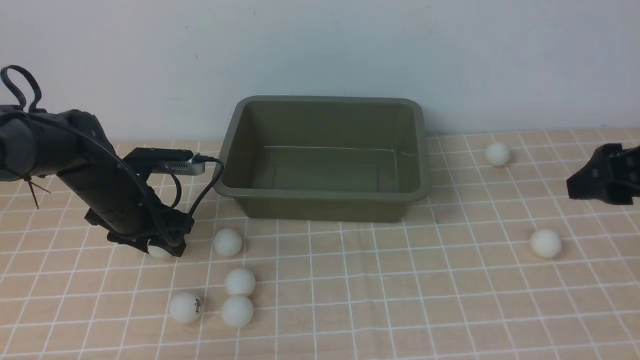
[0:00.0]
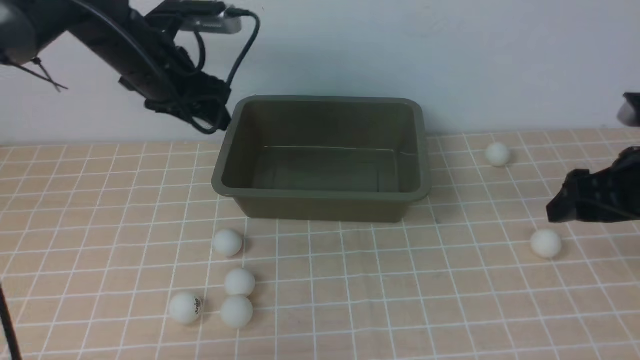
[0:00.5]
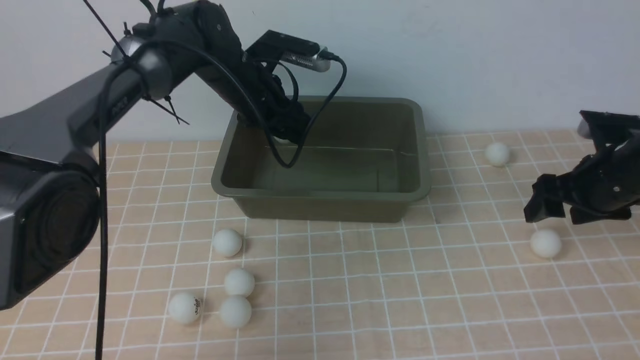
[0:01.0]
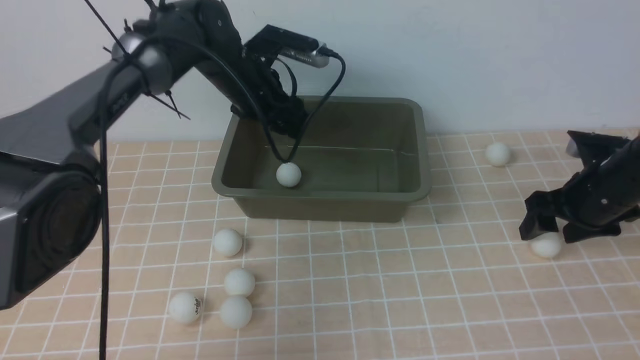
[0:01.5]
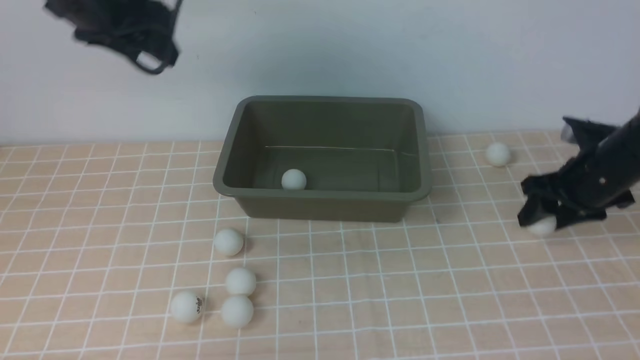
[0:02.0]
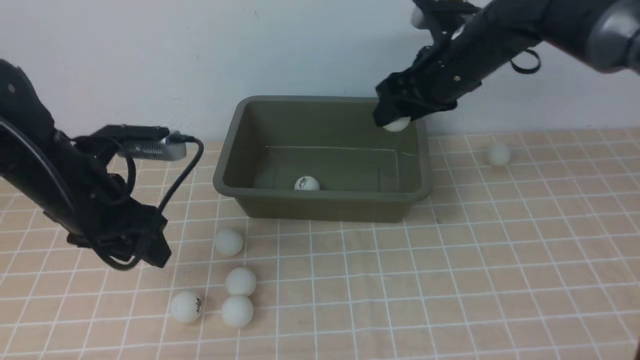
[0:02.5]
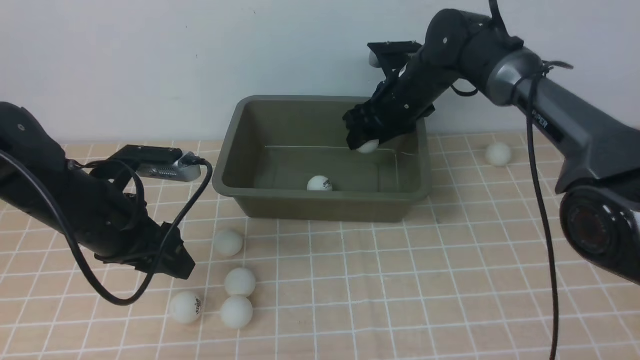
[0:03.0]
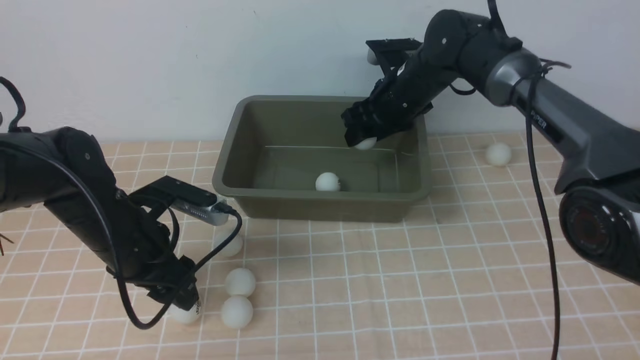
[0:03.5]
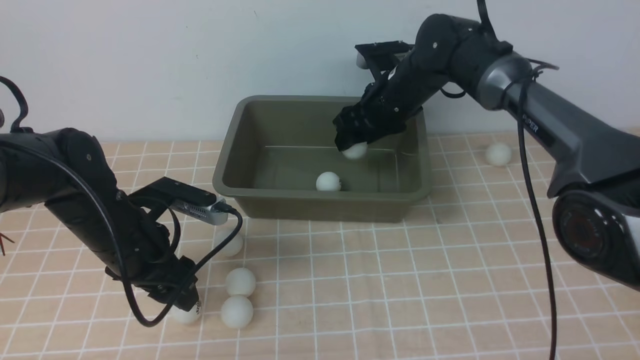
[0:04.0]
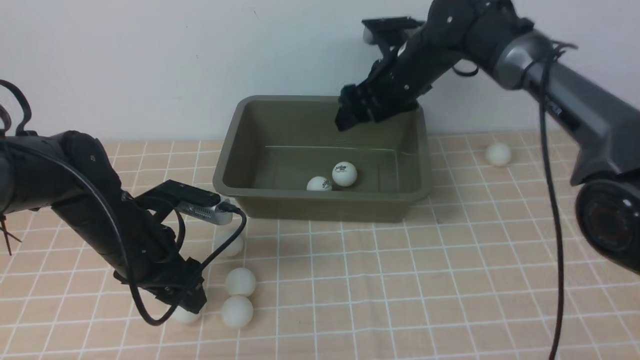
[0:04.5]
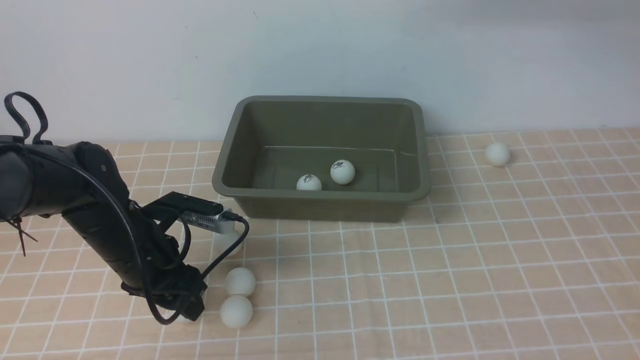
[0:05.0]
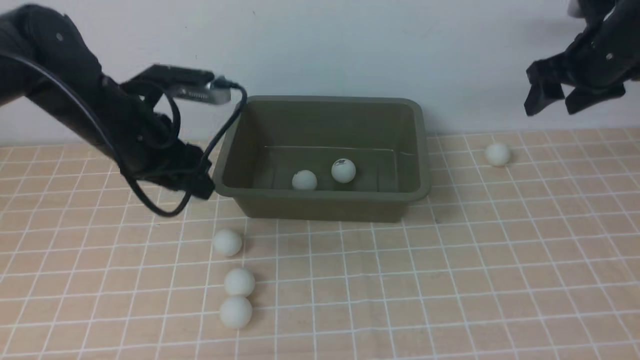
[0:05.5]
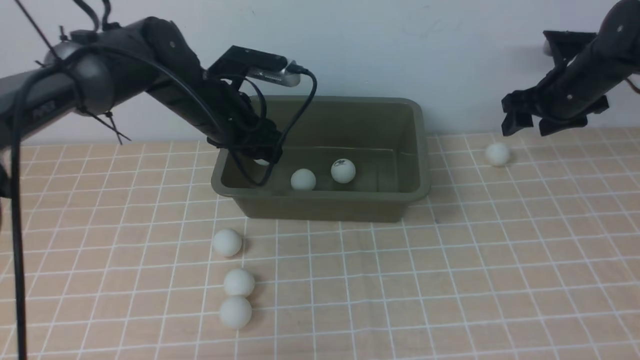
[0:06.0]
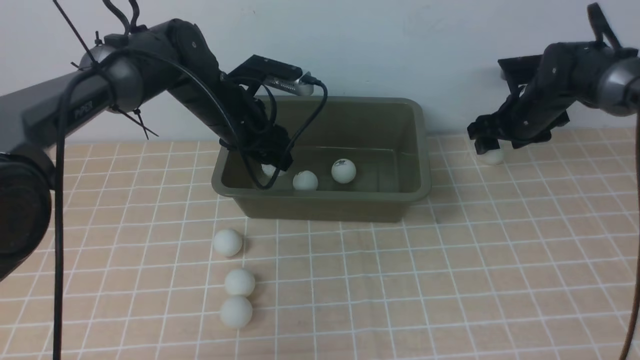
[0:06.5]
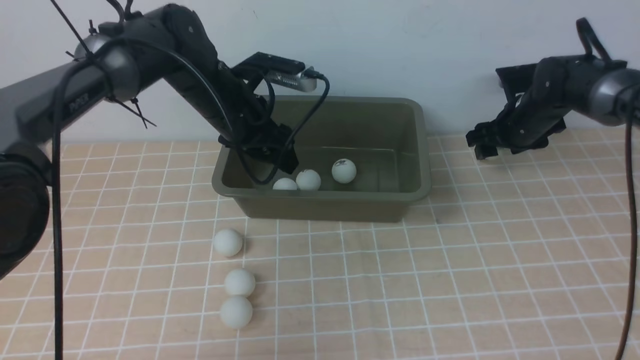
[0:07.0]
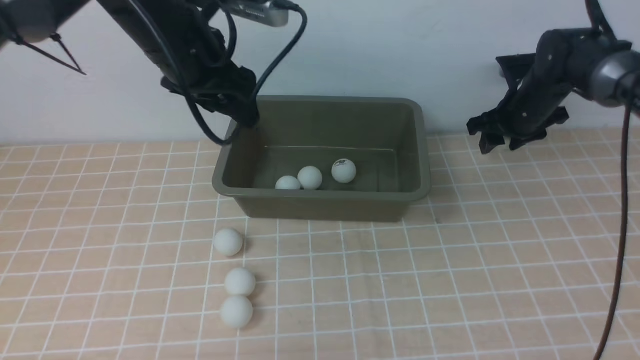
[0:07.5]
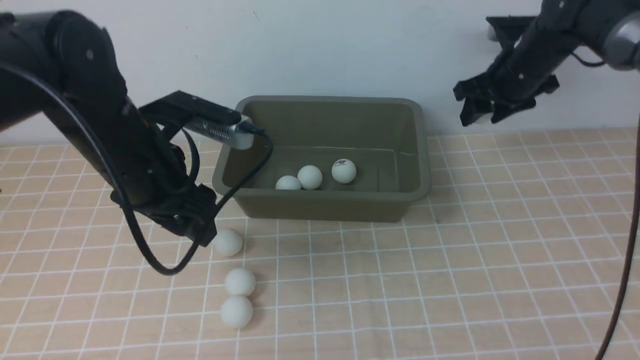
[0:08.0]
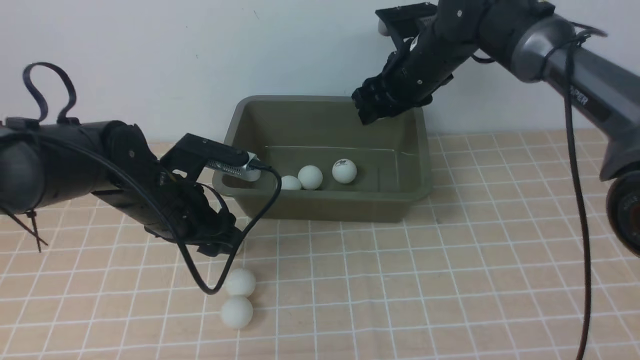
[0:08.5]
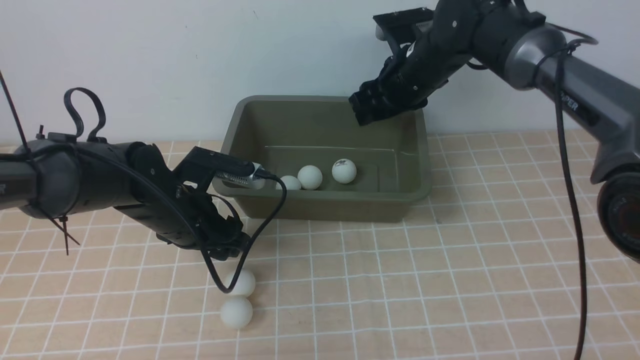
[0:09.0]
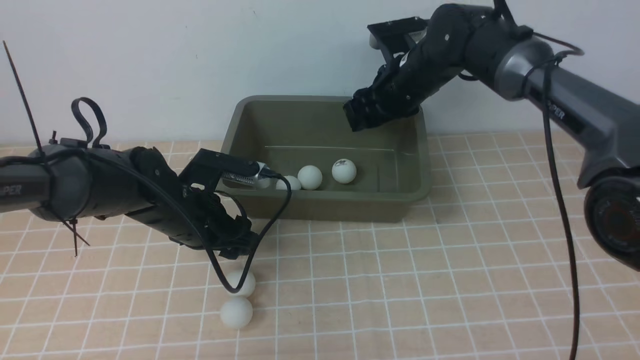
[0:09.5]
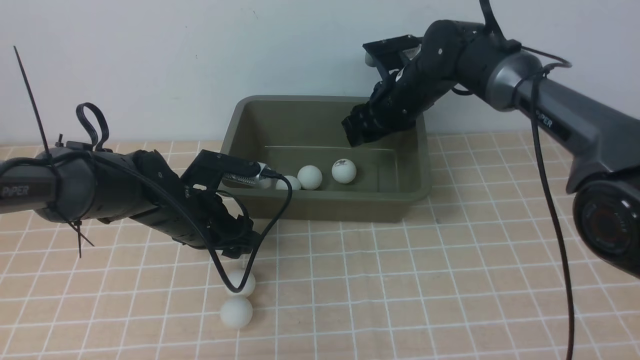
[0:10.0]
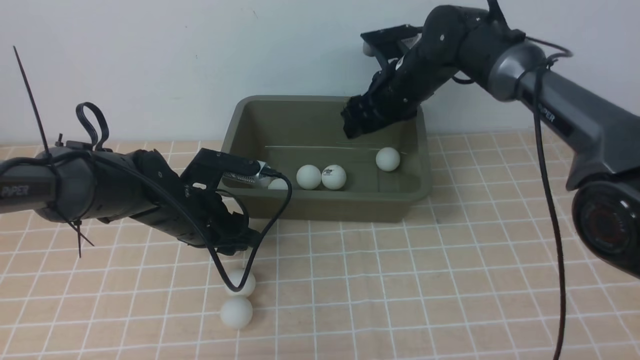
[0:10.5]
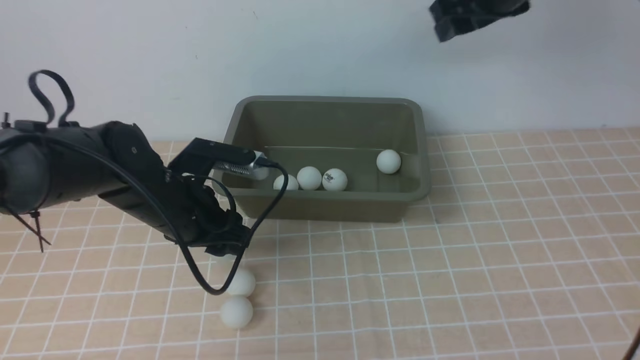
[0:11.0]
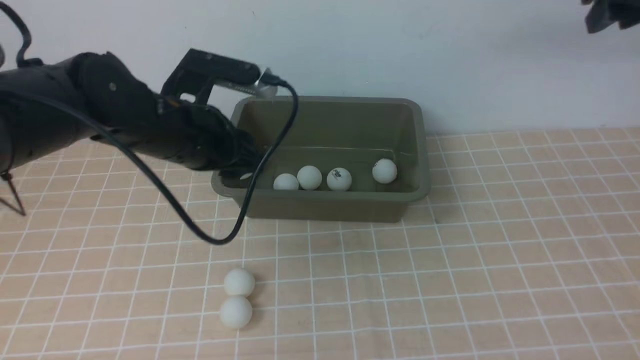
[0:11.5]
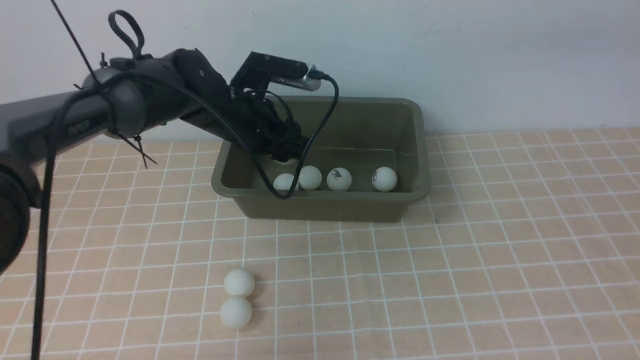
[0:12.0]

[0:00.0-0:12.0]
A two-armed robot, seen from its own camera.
Step, 0:00.5 to 0:01.5: use the left arm to put the table tennis ball into the box.
Step, 0:02.5 to 0:04.0: use the right arm to put the table tennis ball into the box.
Step, 0:05.5 to 0:06.5: use the left arm to put the table tennis ball into the box.
Step, 0:07.0 to 0:07.5: use the right arm to clamp the table tennis ball closest to it.
Step, 0:08.0 to 0:09.5: use the right arm to put the table tennis ball into the box.
Step, 0:10.5 to 0:11.0: use the left arm to clamp the table tennis ball closest to it.
0:00.0 to 0:02.0: The right gripper heads forward and downward, covering approximately 15 cm, and closes up, while the left gripper swings up and down, about 20 cm each way, with 2 reversals.
0:02.0 to 0:04.0: The right gripper heads to the left and forward, covering about 20 cm. Meanwhile the left gripper goes some 20 cm downward and backward.
0:04.0 to 0:06.0: The left gripper heads forward, to the right and upward, covering some 15 cm. Meanwhile the right gripper is displaced to the right by roughly 20 cm.
0:06.0 to 0:08.0: The left gripper is displaced backward by about 10 cm. The right gripper is displaced to the left by about 10 cm.
0:08.0 to 0:10.0: The left gripper shifts about 15 cm downward; the right gripper shifts some 10 cm to the left.
0:10.0 to 0:12.0: The right gripper heads upward, to the right and backward, covering approximately 40 cm, and closes its fingers; the left gripper is displaced forward, upward and to the right by roughly 15 cm.

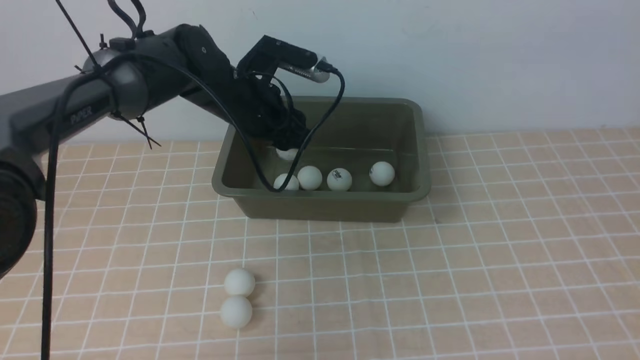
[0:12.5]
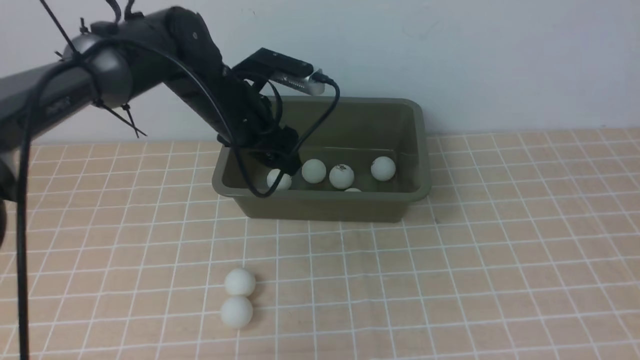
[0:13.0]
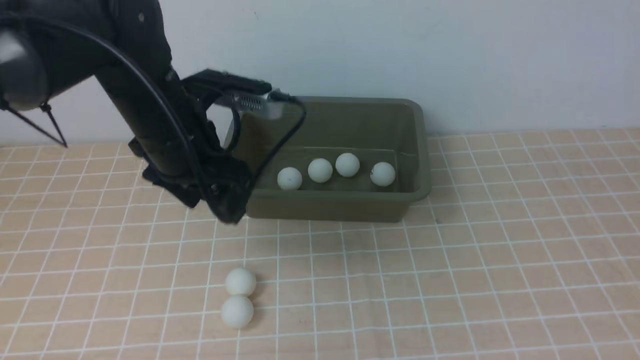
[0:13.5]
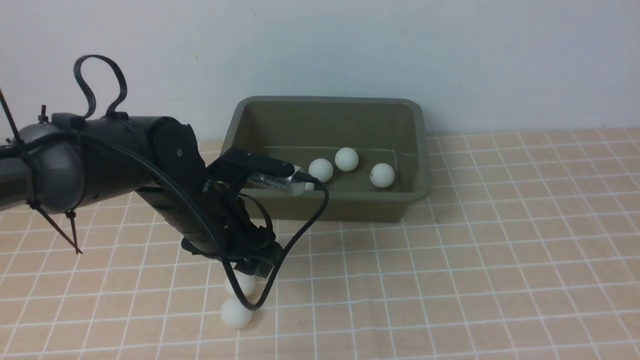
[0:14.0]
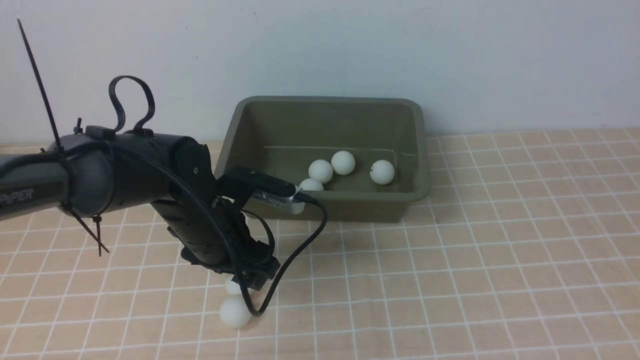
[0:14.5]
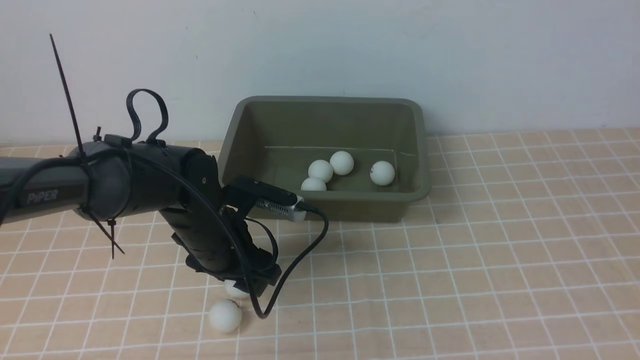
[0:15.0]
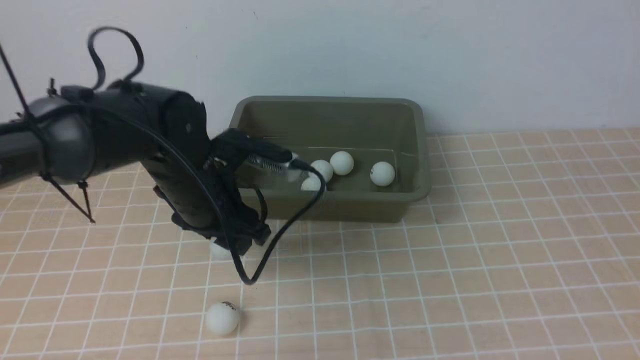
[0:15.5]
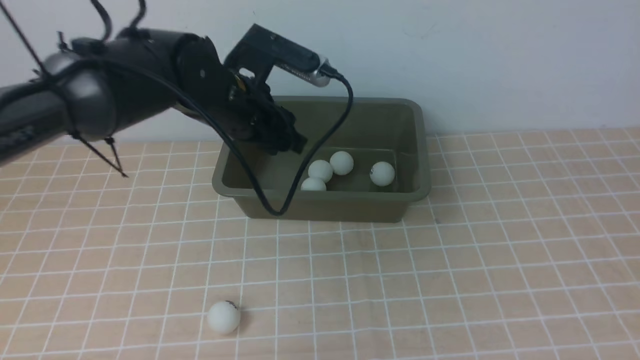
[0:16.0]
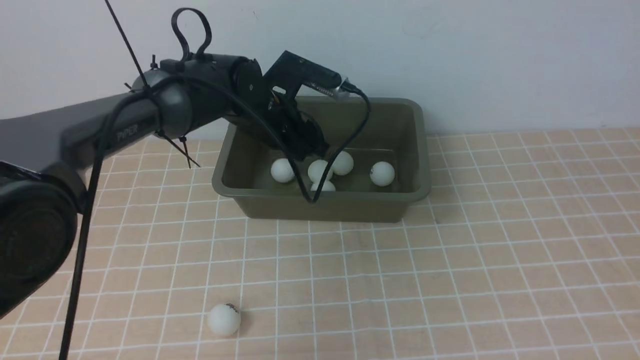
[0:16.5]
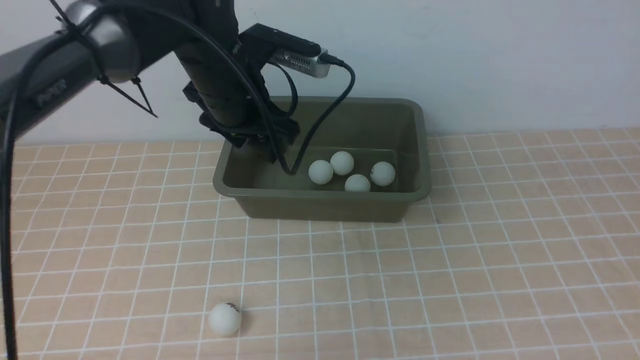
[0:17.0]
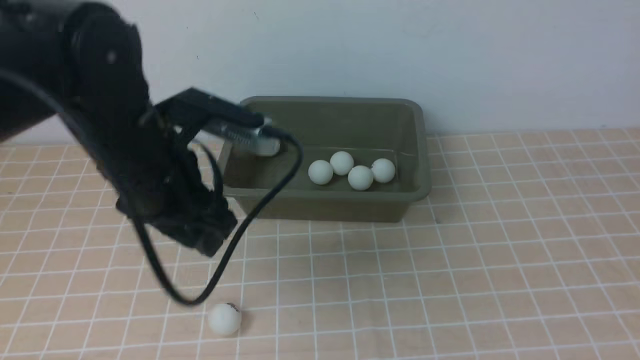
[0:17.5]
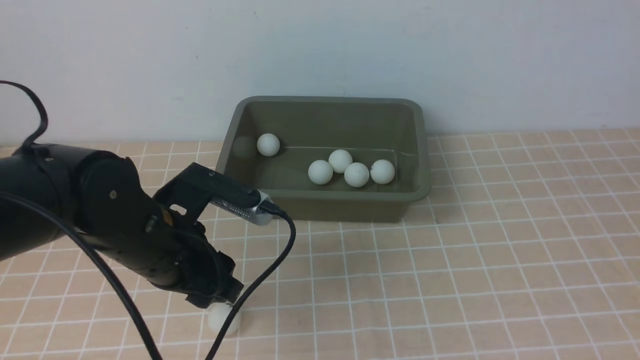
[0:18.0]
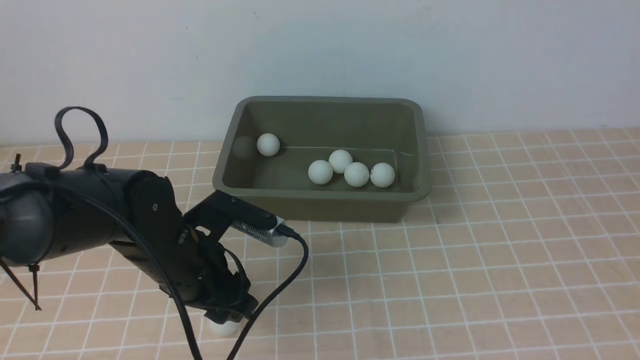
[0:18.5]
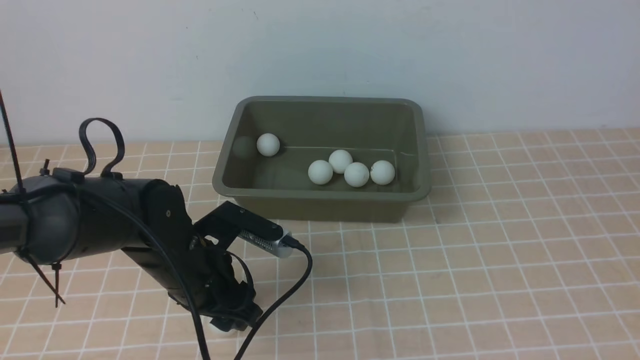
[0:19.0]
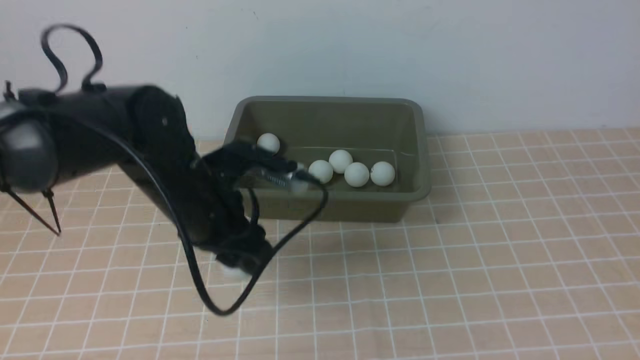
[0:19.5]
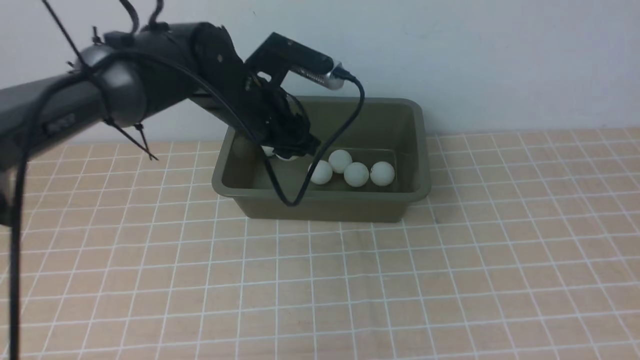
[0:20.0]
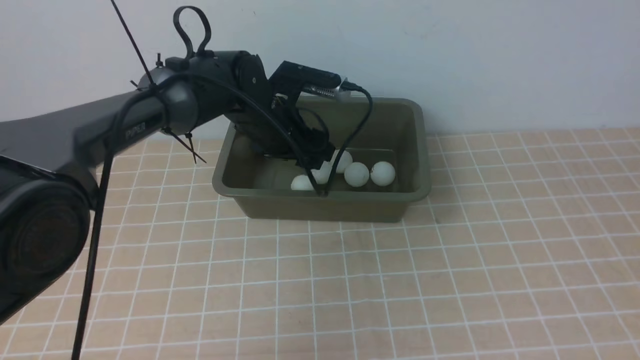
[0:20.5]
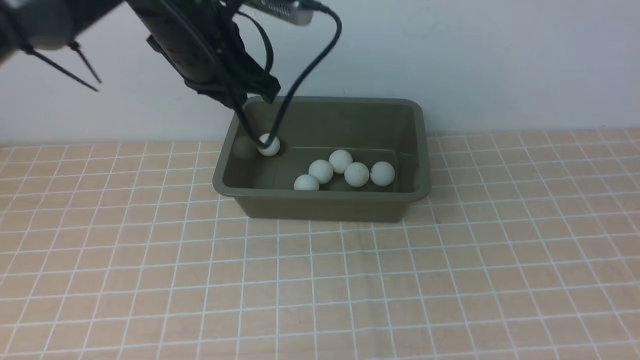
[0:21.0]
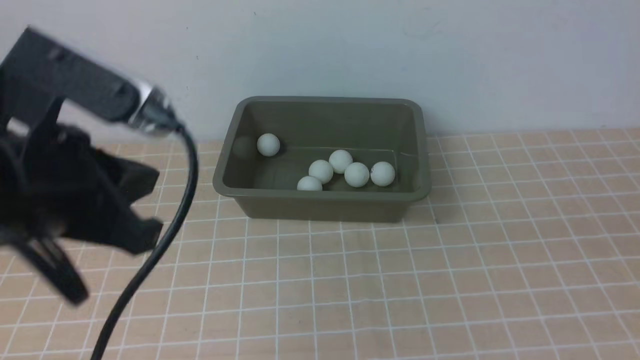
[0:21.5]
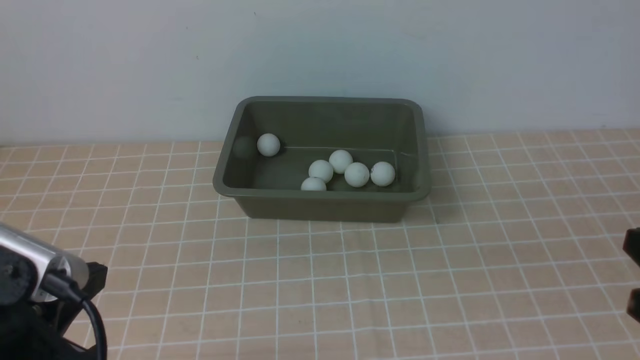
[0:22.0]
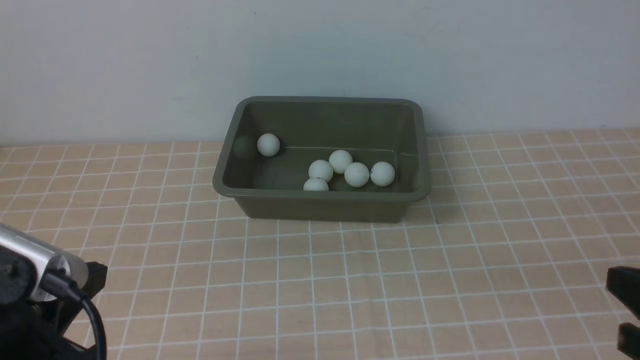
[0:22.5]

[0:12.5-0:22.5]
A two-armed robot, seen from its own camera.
Step, 0:13.5 to 0:15.0: use the left arm to clamp the table tennis ball closest to it.
Step, 0:16.0 to 0:16.5: use the left arm to put the table tennis ball into the box.
Step, 0:17.0 to 0:19.0: use the left arm to clamp the table tennis ball closest to it.
Step, 0:19.5 to 0:21.0: use the left arm to put the table tennis ball into the box.
0:12.5 to 0:14.5: The right gripper ends up some 5 cm from where it was. Meanwhile the left gripper travels backward by about 15 cm.
0:14.5 to 0:16.5: The left gripper shifts approximately 15 cm forward.
0:16.5 to 0:18.5: The left gripper moves backward, some 15 cm.
0:18.5 to 0:20.5: The left gripper heads forward, covering some 15 cm.
0:20.5 to 0:22.5: The left gripper goes approximately 35 cm backward and to the left, and closes up. Meanwhile the right gripper moves downward, approximately 20 cm.
